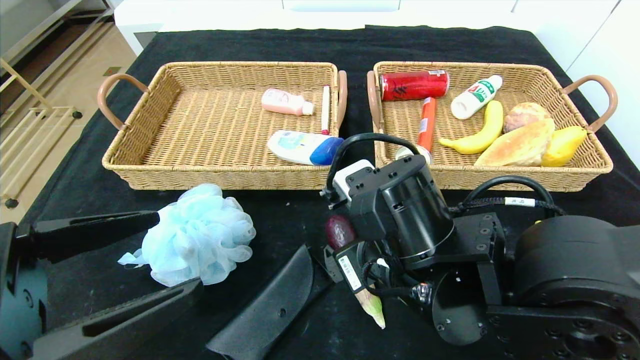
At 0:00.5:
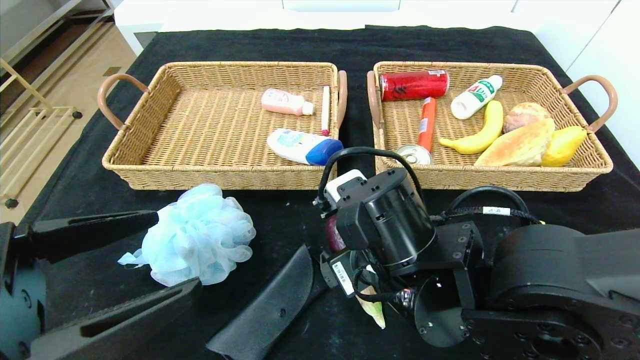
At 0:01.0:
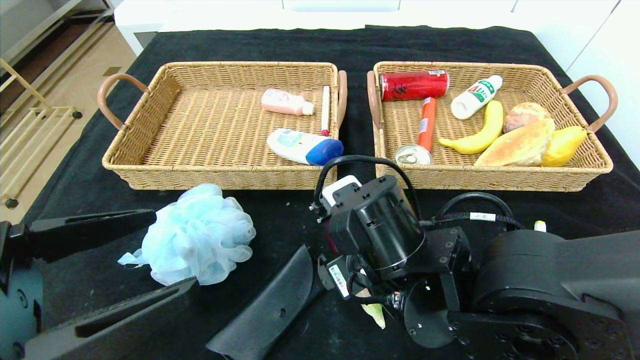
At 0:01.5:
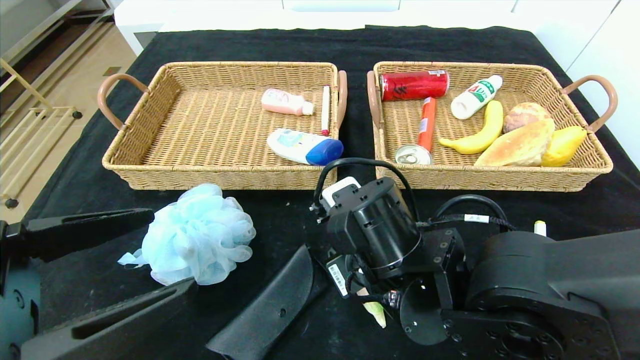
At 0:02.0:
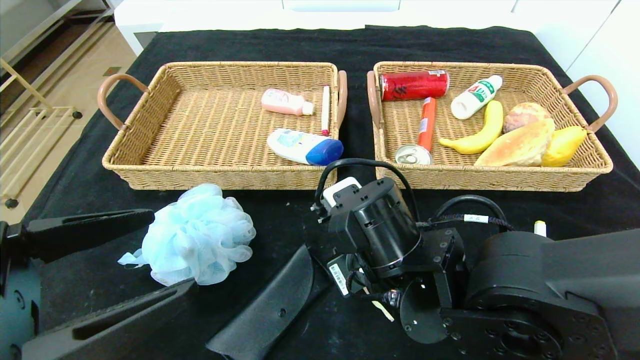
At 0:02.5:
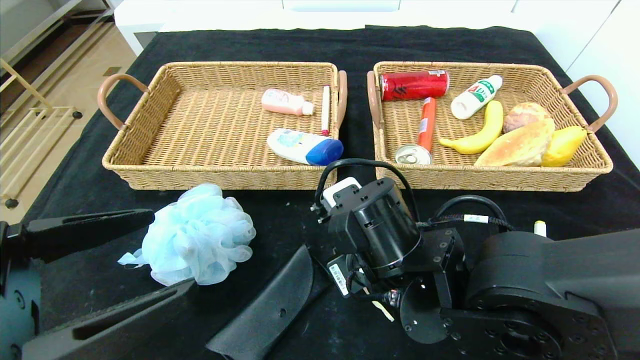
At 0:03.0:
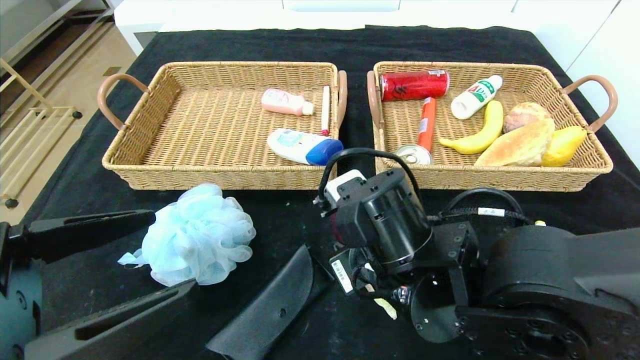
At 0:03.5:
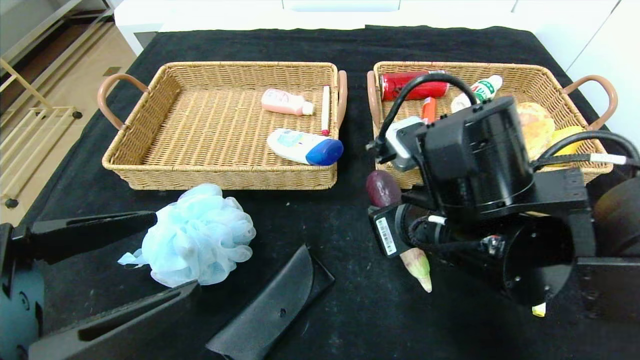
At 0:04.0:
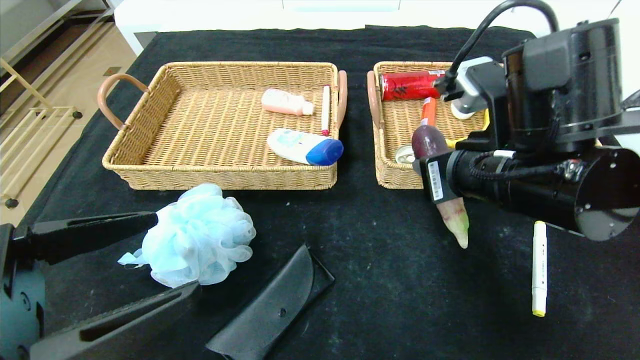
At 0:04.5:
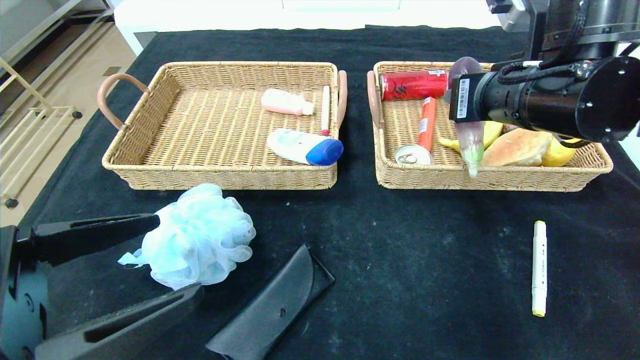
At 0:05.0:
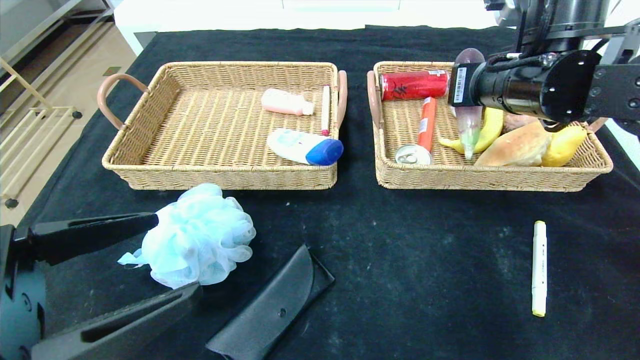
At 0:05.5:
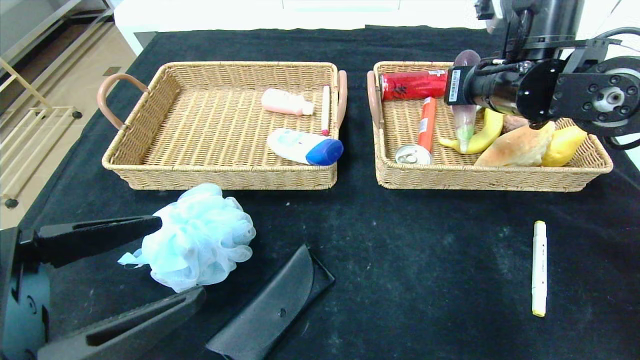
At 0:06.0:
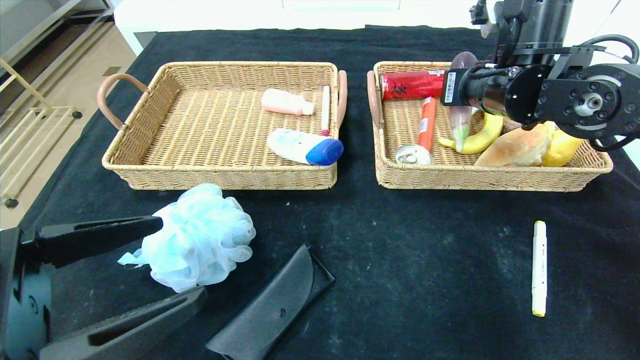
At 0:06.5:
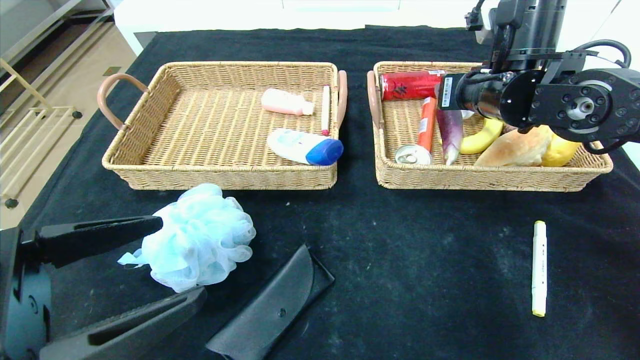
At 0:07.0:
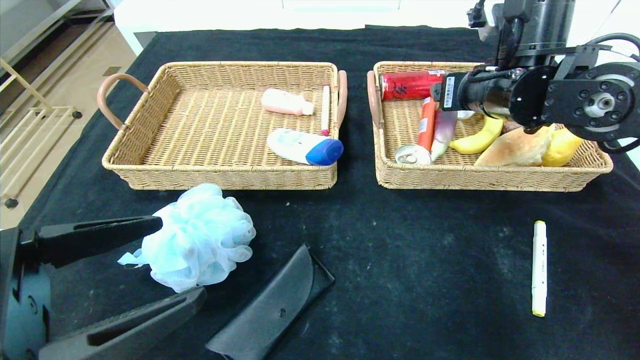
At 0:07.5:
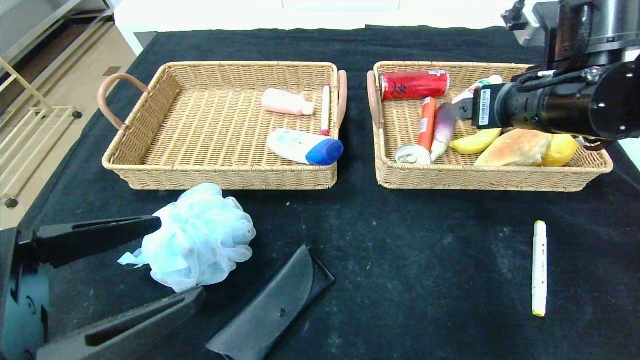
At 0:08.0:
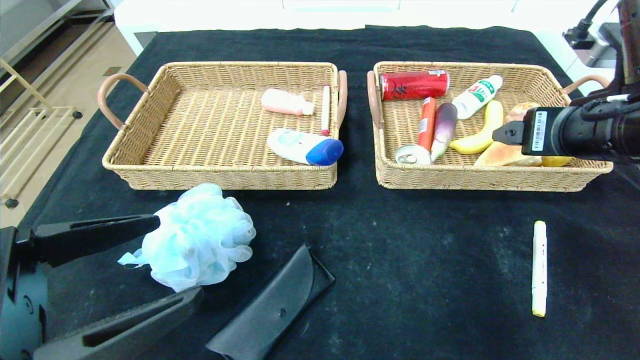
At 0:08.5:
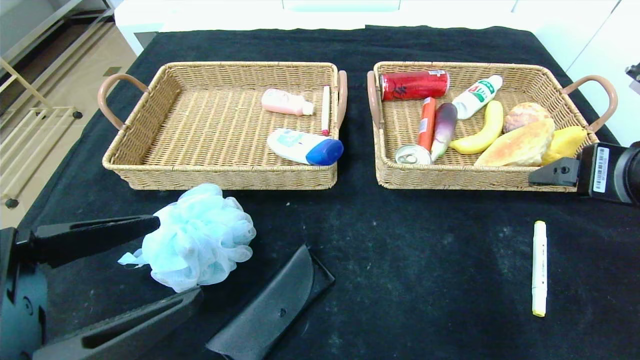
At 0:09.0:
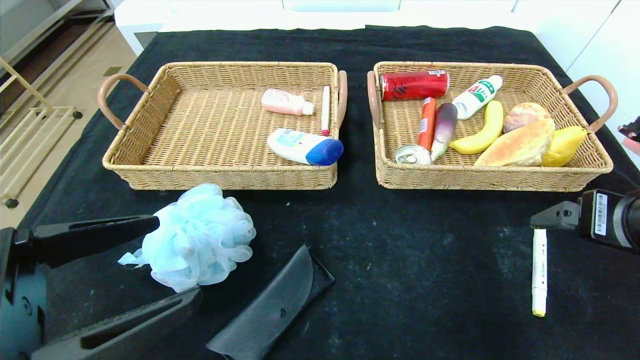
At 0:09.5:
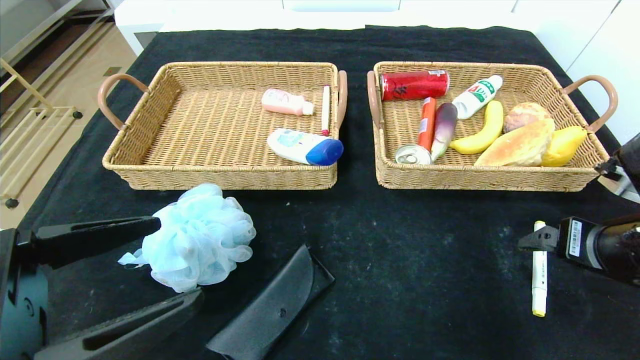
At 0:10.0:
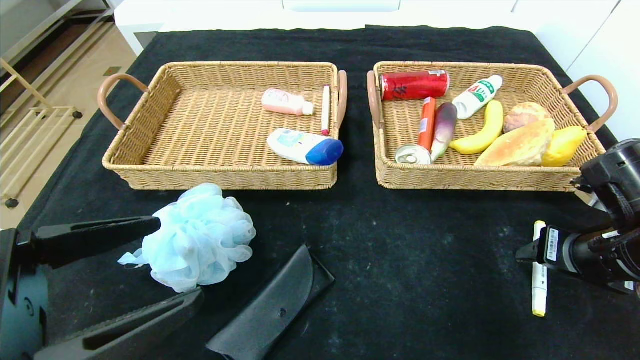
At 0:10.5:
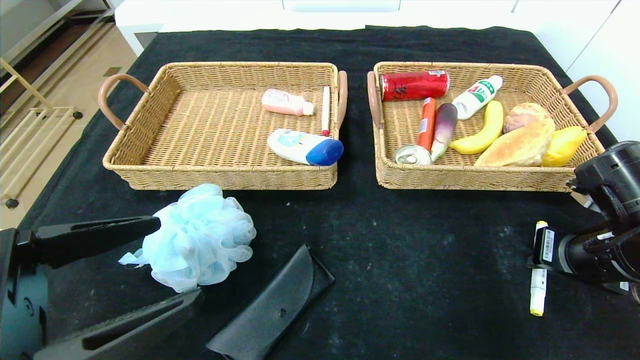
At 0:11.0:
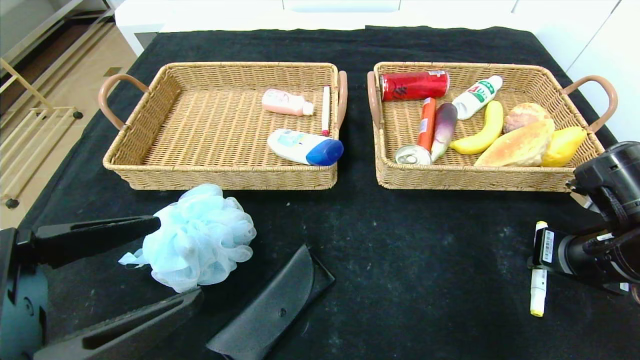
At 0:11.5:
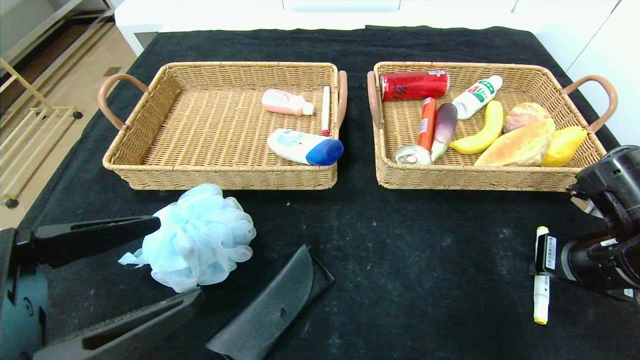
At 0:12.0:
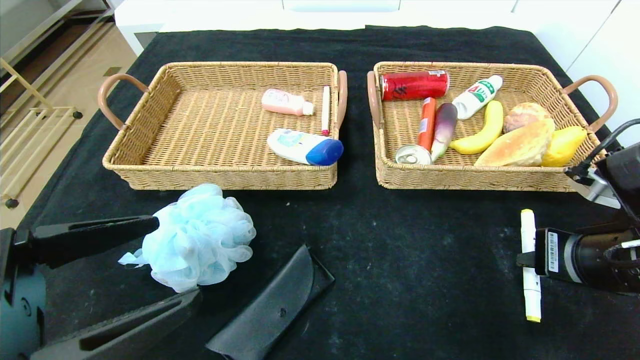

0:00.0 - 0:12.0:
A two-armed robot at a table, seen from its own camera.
Step, 0:00.0 - 0:06.5: Grasp the eggplant and put it in the right basket.
0:00.0 - 0:02.0: The right gripper closes its fingers.
0:02.0 - 0:04.0: The right gripper travels upward and to the right by some 15 cm.
0:04.0 - 0:06.0: The right gripper moves forward, roughly 15 cm.
0:06.0 - 0:08.0: The right gripper shifts about 15 cm backward, and opens its fingers.
0:08.0 - 0:10.0: The right gripper moves downward and to the right, about 15 cm.
0:10.0 - 0:12.0: The right gripper ends up roughly 5 cm from where it was, and closes.

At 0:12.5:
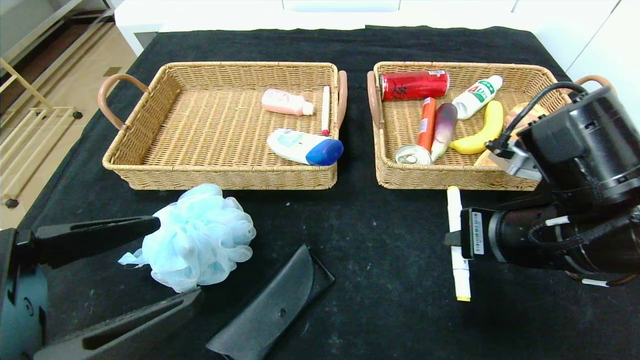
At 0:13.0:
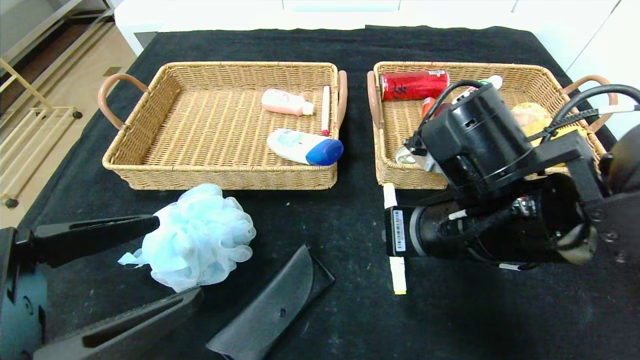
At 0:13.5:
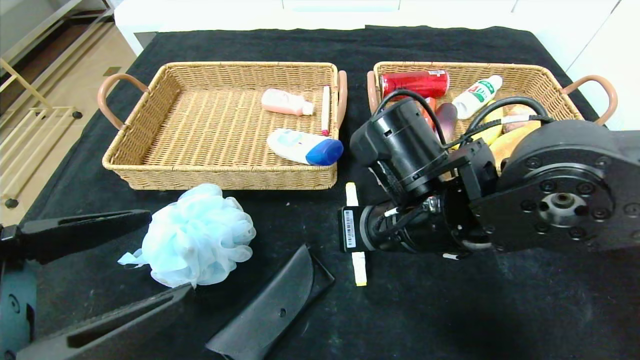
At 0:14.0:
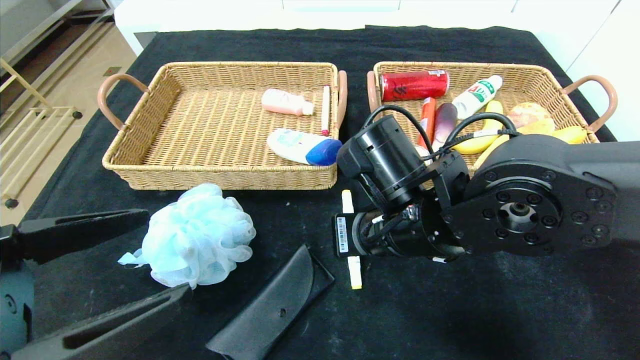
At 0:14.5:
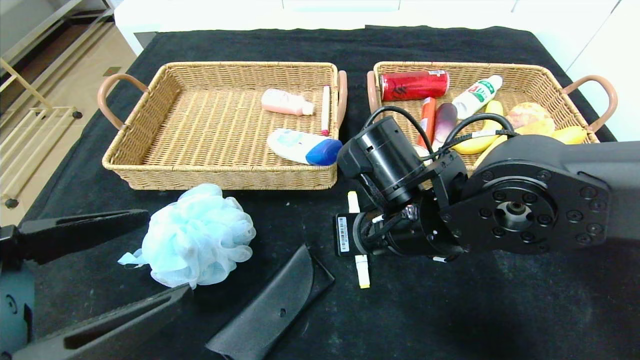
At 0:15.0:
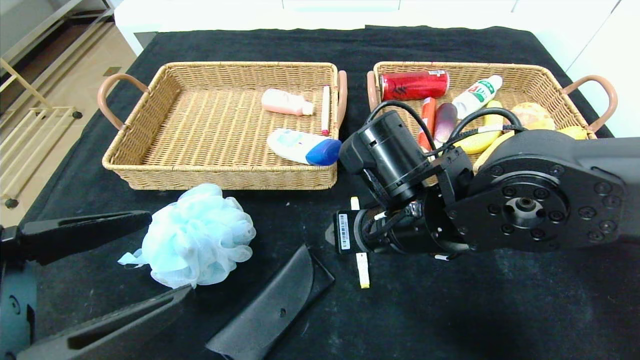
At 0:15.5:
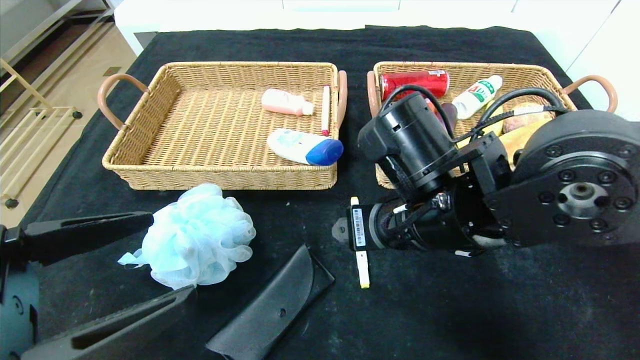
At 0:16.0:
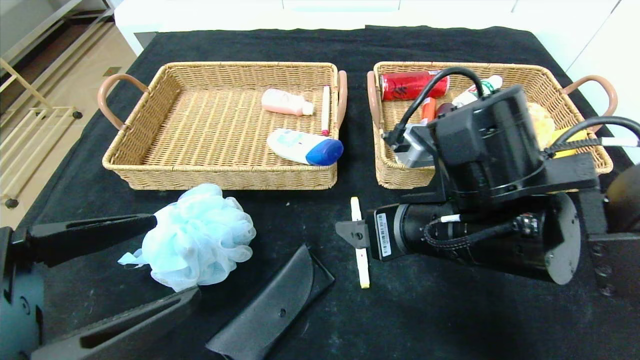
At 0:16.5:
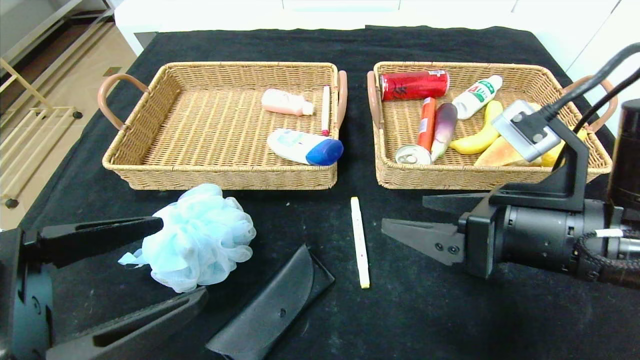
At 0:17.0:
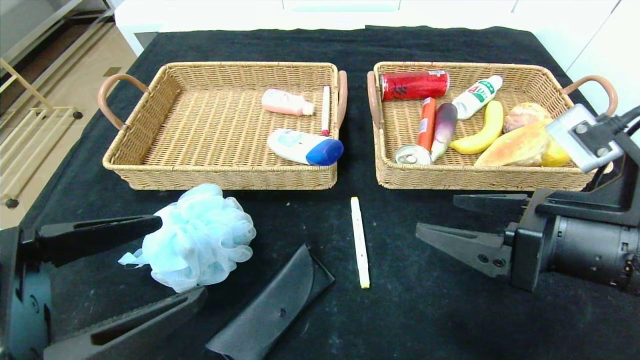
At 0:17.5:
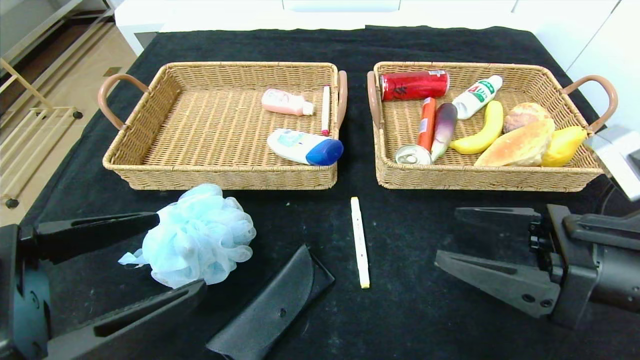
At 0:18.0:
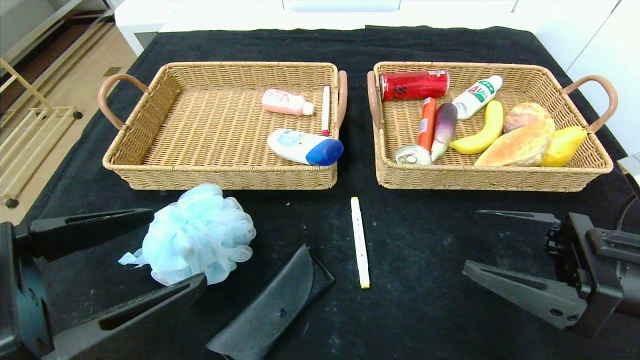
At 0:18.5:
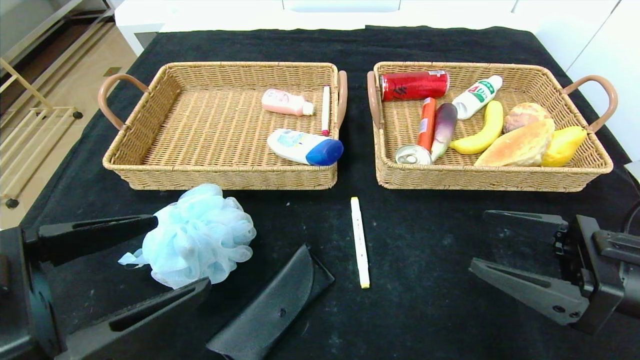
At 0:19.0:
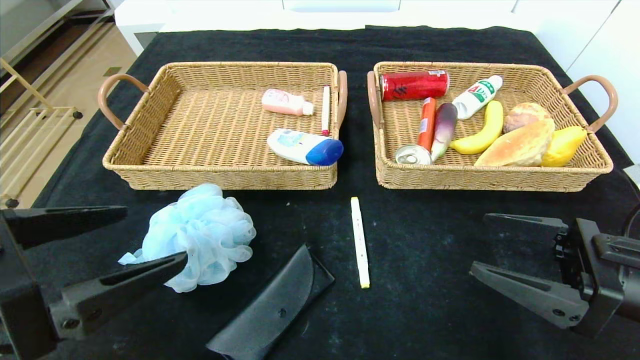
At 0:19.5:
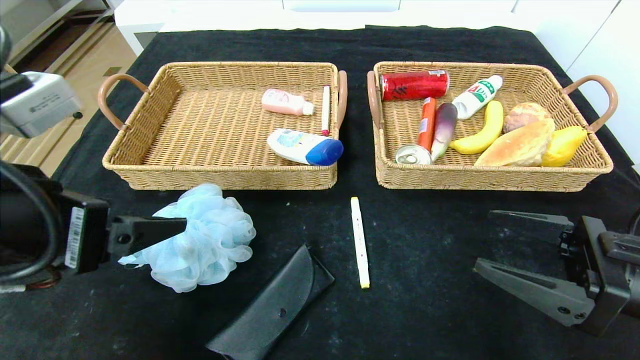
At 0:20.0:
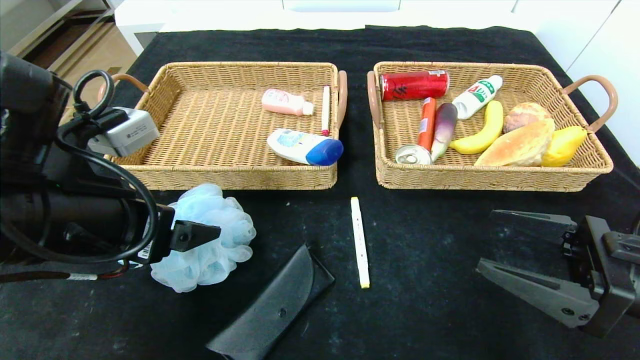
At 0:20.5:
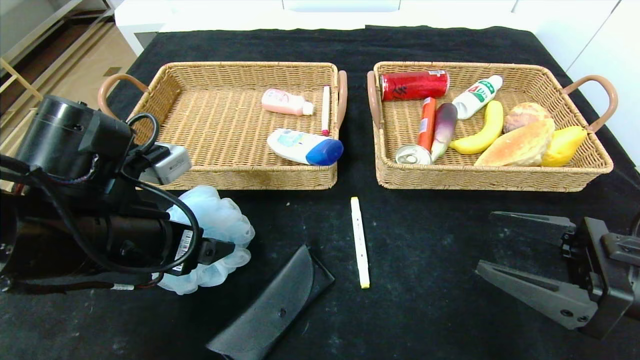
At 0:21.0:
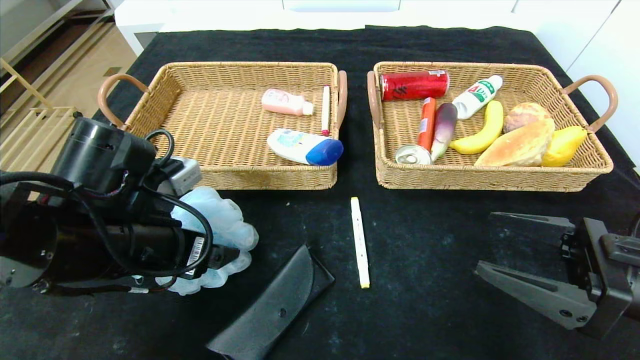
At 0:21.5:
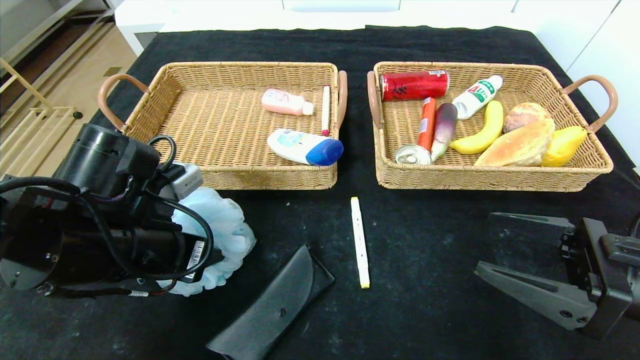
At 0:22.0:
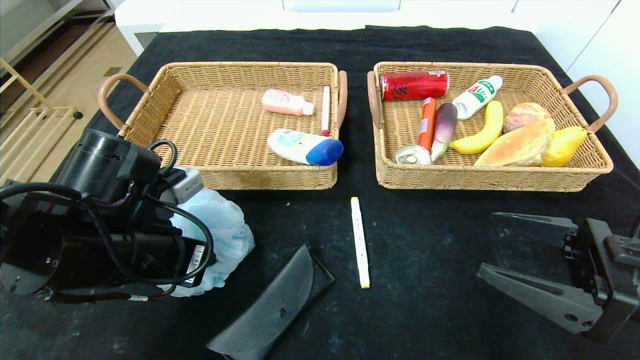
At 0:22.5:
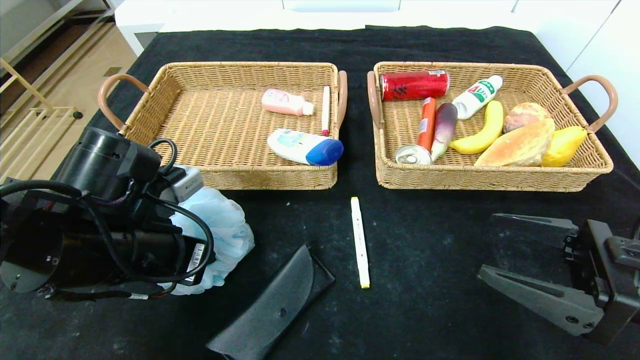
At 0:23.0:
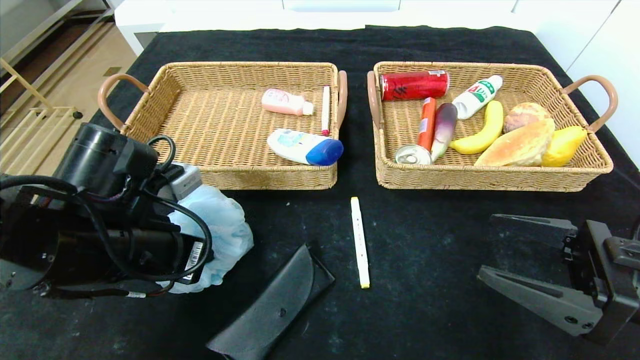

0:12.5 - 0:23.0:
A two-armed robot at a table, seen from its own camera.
Step, 0:12.5 - 0:15.0: Place the yellow marker in the center of the table.
0:12.5 - 0:14.5: The right gripper is displaced to the left by approximately 15 cm, and opens up.
0:14.5 - 0:16.5: The right gripper heads to the right and backward, covering roughly 15 cm, and opens its fingers.
0:16.5 - 0:19.0: The right gripper moves to the right, approximately 10 cm.
0:19.0 - 0:21.0: The left gripper travels forward and downward by approximately 15 cm.
0:21.0 - 0:23.0: The left gripper closes.
